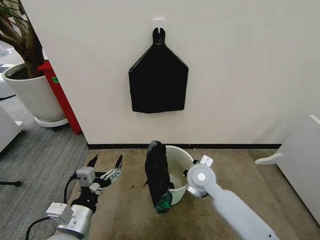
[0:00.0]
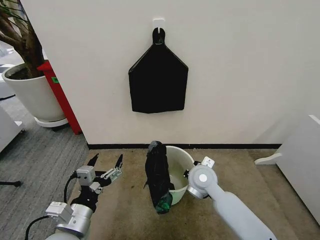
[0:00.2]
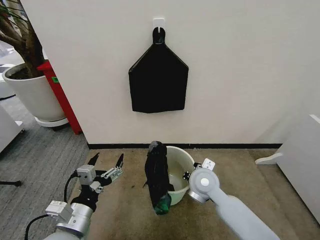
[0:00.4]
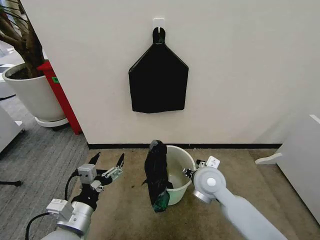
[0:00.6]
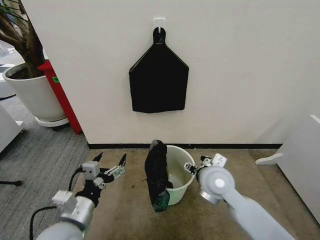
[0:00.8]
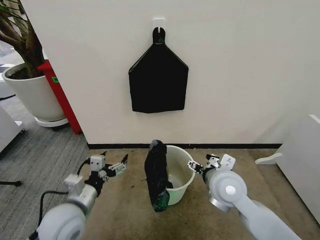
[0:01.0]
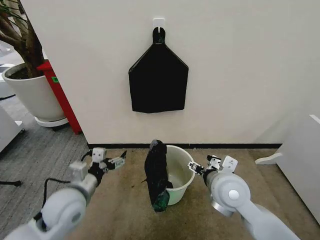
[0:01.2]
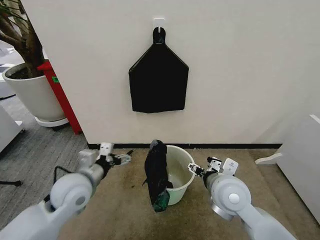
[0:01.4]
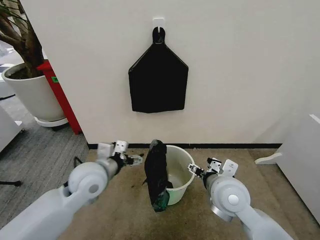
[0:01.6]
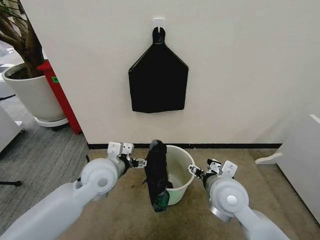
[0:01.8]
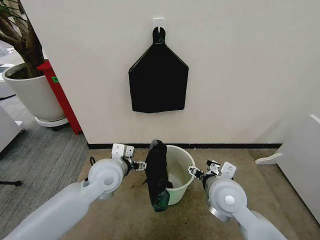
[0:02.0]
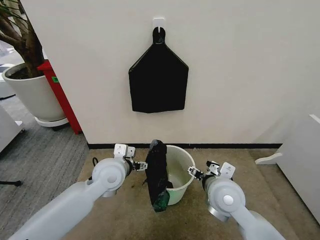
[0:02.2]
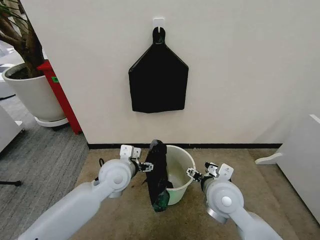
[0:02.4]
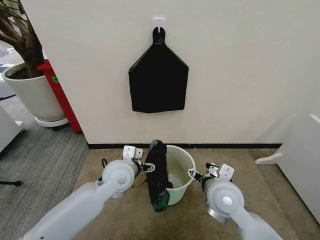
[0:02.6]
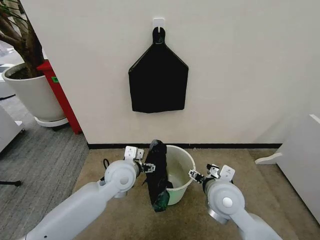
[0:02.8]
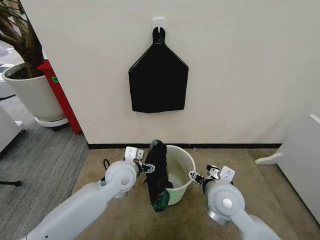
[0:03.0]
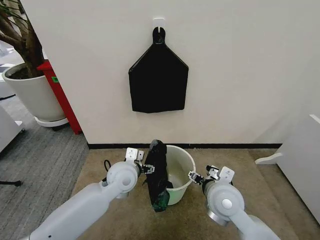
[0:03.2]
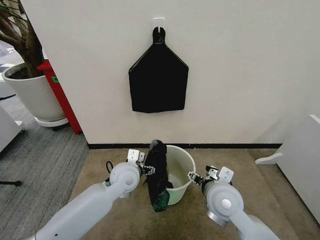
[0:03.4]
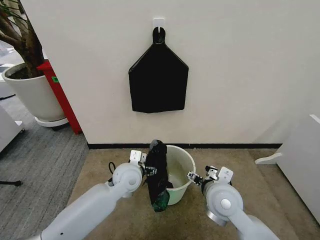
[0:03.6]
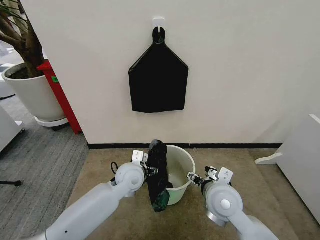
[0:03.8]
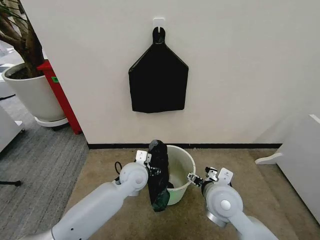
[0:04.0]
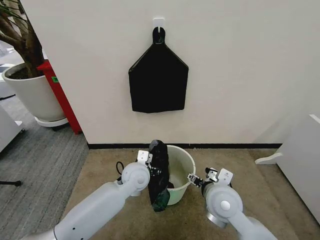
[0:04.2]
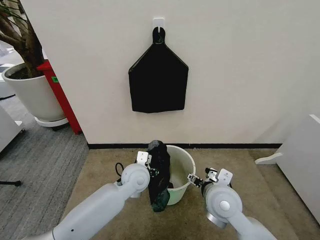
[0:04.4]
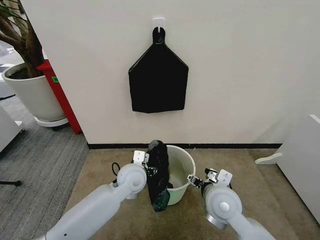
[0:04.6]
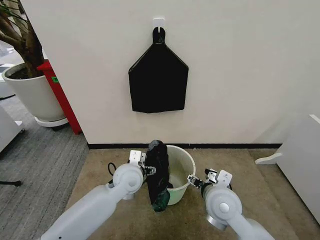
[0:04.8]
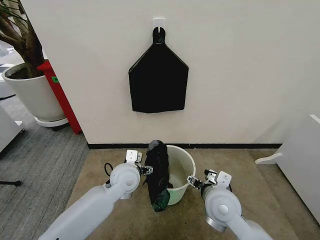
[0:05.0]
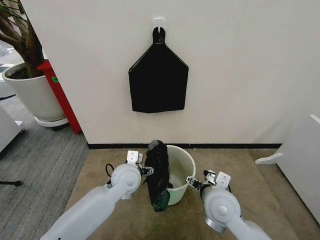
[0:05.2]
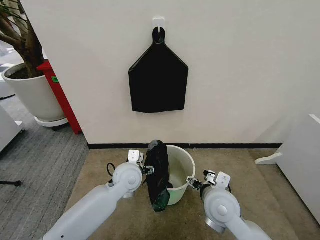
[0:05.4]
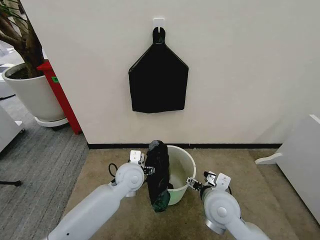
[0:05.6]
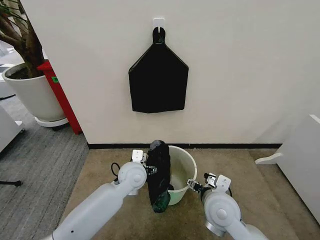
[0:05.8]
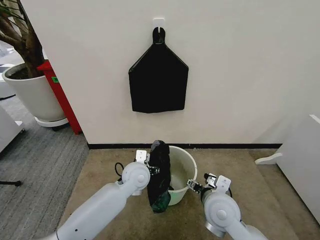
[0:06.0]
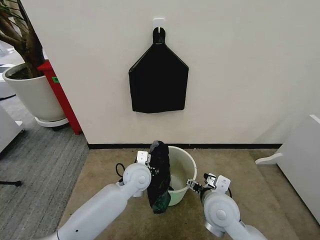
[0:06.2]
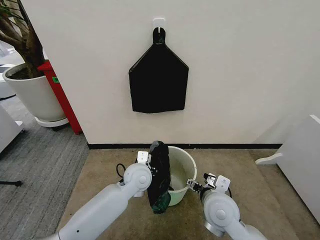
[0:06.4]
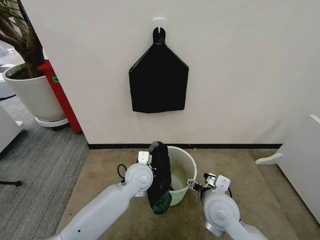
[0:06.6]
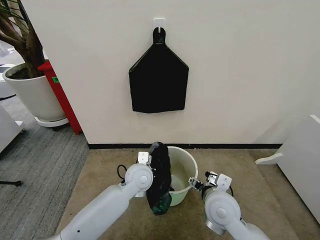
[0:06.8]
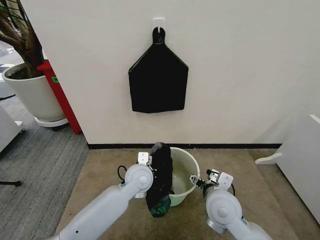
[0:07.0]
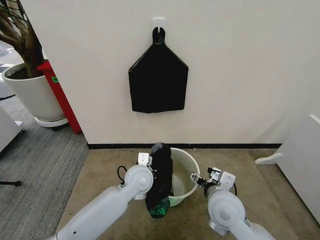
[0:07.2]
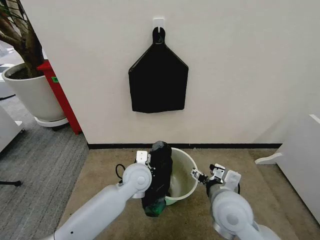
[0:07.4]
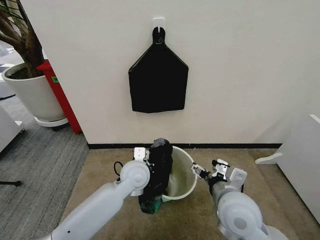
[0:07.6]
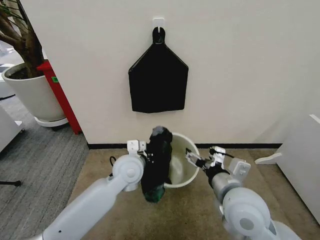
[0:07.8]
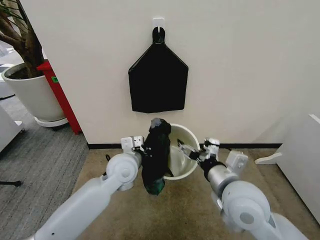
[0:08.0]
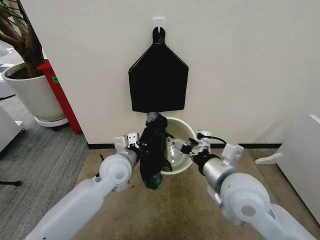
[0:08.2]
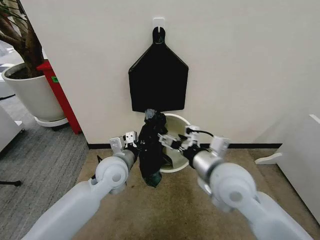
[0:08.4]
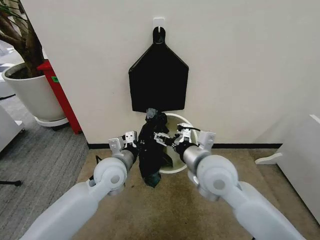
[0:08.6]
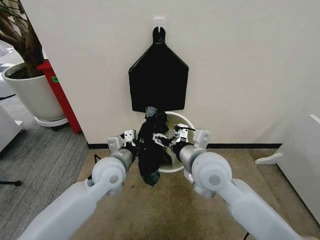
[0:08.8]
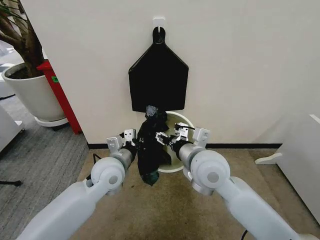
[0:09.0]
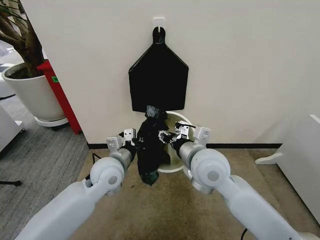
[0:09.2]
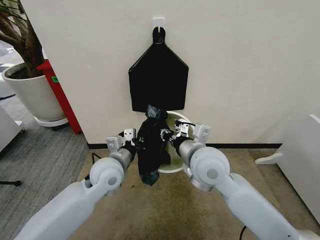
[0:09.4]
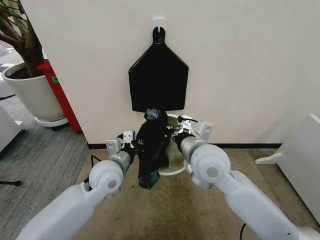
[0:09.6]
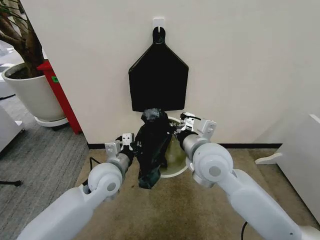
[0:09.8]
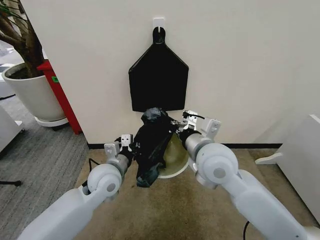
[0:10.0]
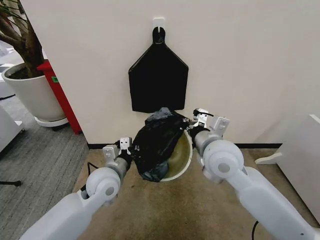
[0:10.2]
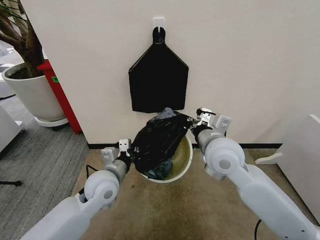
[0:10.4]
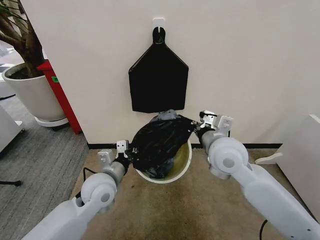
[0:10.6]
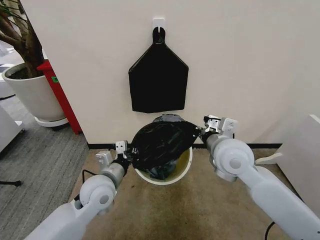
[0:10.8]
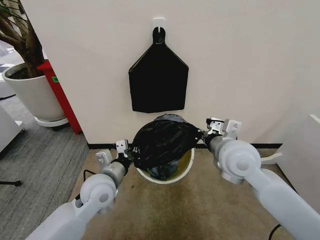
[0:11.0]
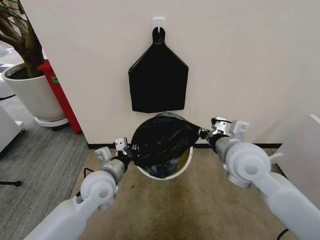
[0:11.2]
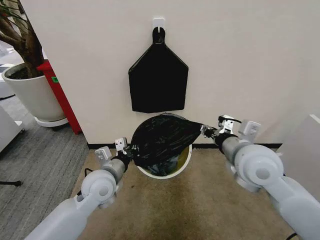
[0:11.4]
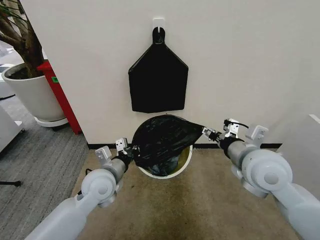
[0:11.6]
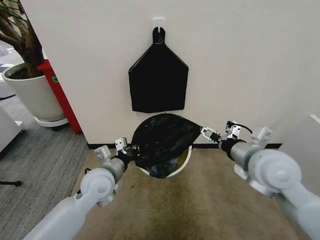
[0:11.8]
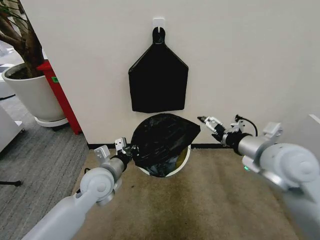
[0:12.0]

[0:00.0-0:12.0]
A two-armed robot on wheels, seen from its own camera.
Task of the whole recording: Place the garbage bag over the trash bin.
0:00.0 to 0:01.6: The right gripper is displaced backward and upward by roughly 10 cm, and opens its fingers, while the left gripper heads forward, covering roughly 15 cm.
0:01.6 to 0:03.0: The left gripper shifts approximately 10 cm to the right.
0:03.0 to 0:04.4: The left gripper changes place by about 5 cm.
0:04.4 to 0:06.0: The grippers stay close to where they were, moving slightly.
0:06.0 to 0:07.6: The left gripper closes its fingers. Meanwhile the right gripper is displaced upward by some 5 cm.
0:07.6 to 0:09.0: The left gripper shifts about 5 cm to the left. Meanwhile the right gripper moves forward, to the left and upward, approximately 10 cm.
0:09.0 to 0:10.4: The right gripper shifts by some 5 cm, and closes its fingers.
0:10.4 to 0:12.0: The right gripper shifts some 10 cm to the right, and opens its fingers.

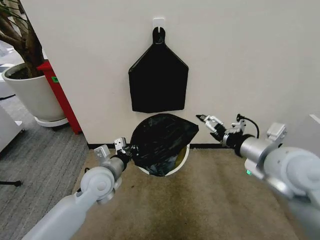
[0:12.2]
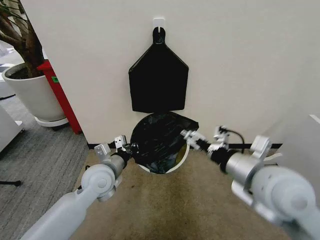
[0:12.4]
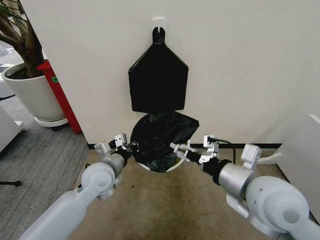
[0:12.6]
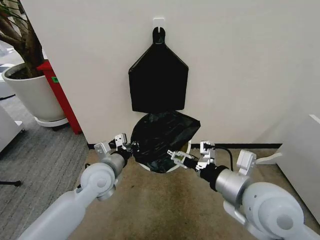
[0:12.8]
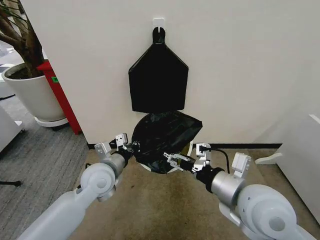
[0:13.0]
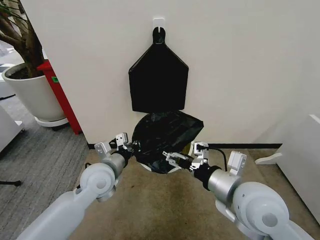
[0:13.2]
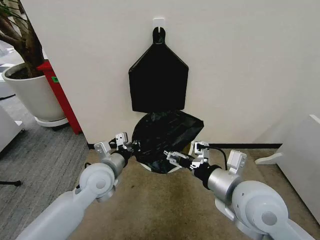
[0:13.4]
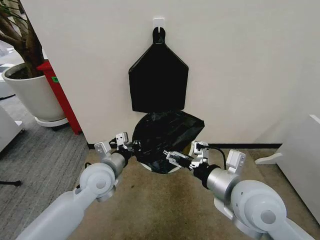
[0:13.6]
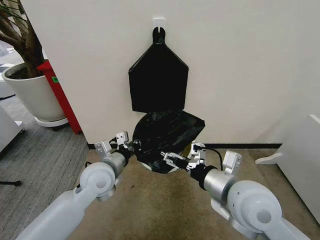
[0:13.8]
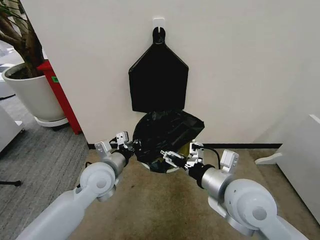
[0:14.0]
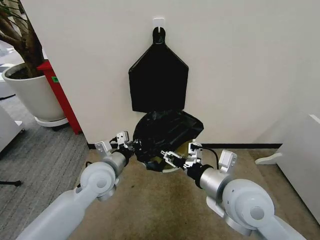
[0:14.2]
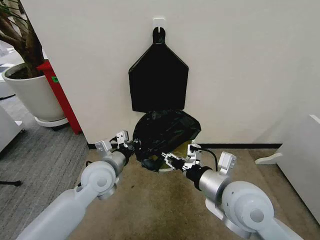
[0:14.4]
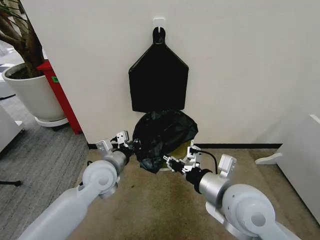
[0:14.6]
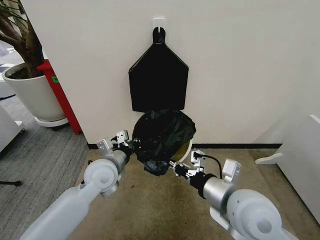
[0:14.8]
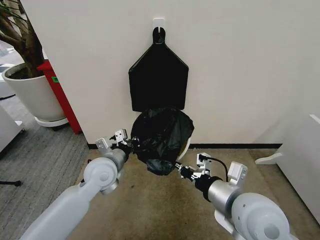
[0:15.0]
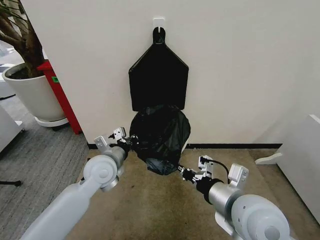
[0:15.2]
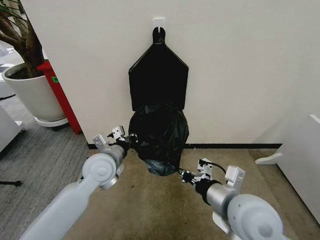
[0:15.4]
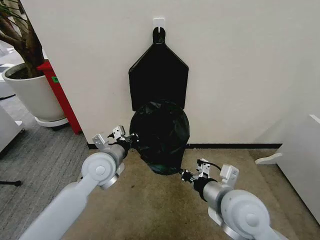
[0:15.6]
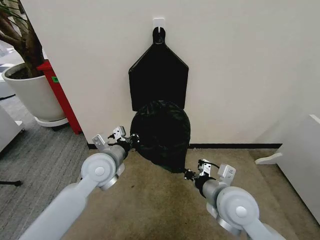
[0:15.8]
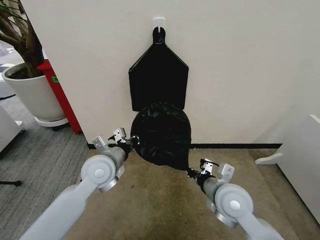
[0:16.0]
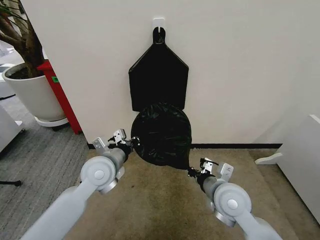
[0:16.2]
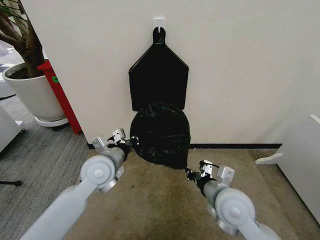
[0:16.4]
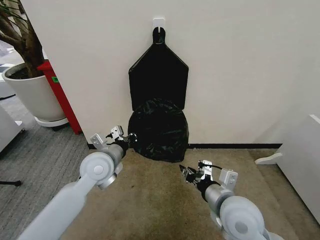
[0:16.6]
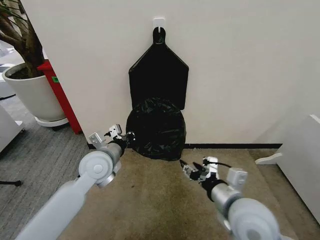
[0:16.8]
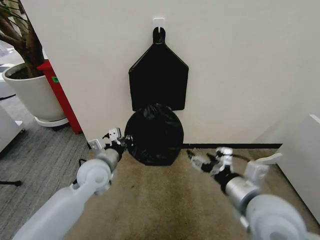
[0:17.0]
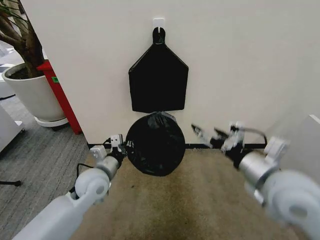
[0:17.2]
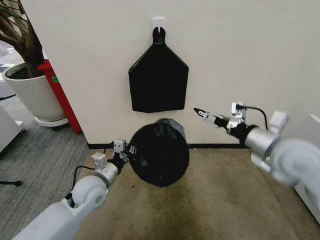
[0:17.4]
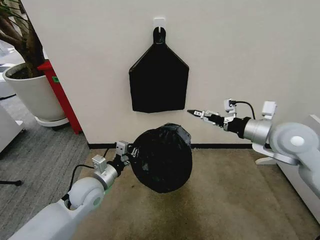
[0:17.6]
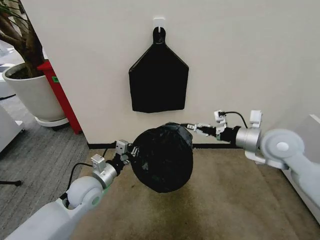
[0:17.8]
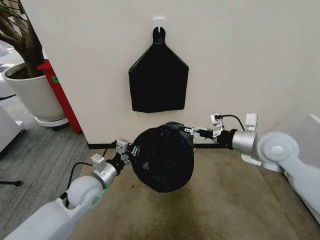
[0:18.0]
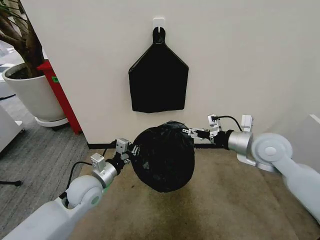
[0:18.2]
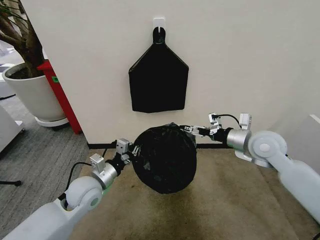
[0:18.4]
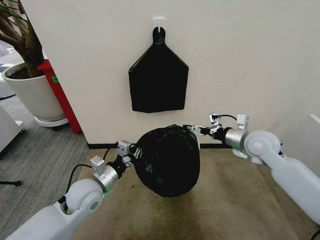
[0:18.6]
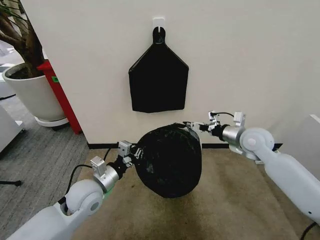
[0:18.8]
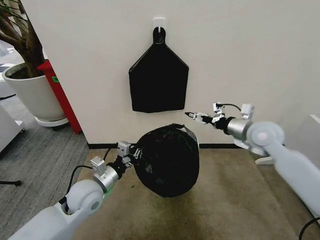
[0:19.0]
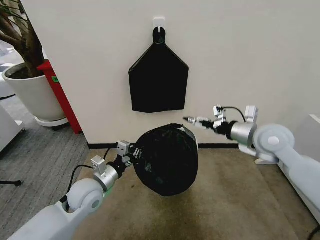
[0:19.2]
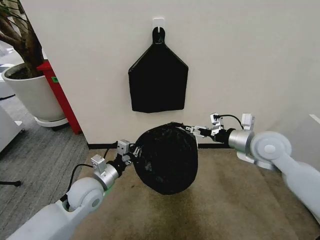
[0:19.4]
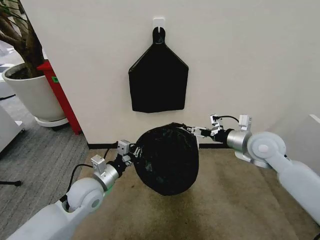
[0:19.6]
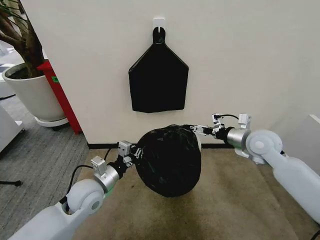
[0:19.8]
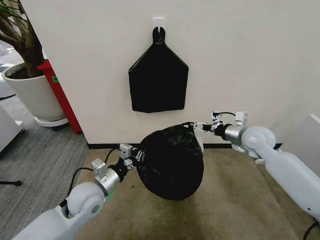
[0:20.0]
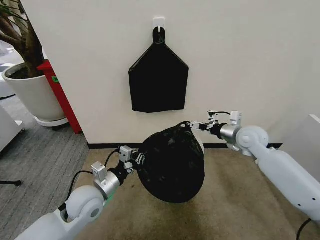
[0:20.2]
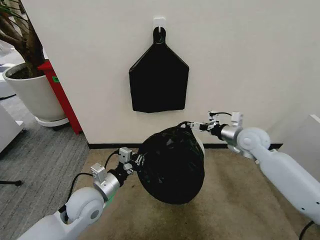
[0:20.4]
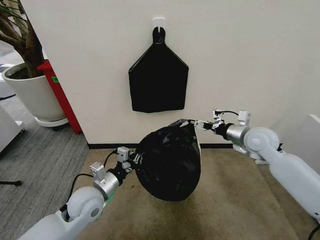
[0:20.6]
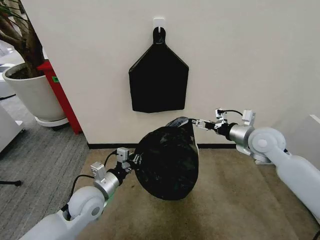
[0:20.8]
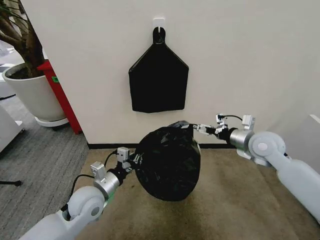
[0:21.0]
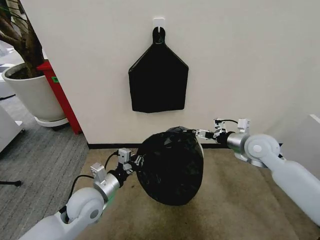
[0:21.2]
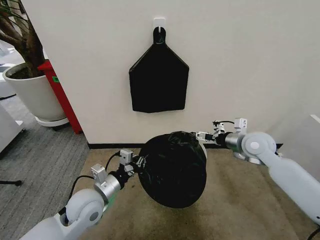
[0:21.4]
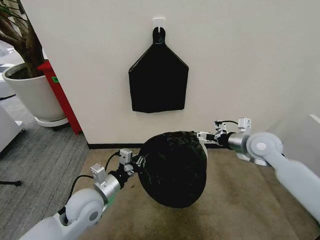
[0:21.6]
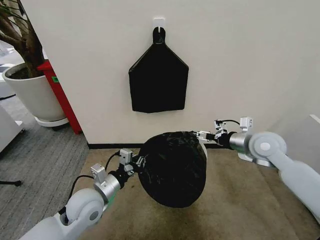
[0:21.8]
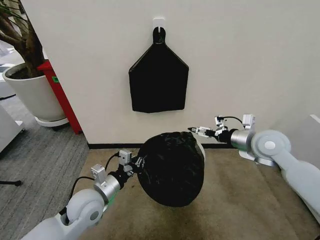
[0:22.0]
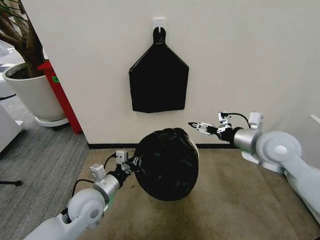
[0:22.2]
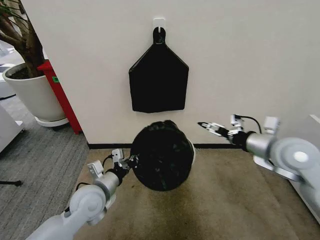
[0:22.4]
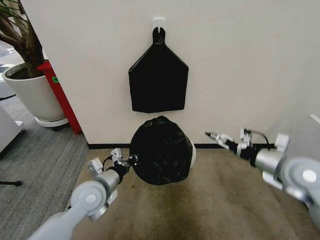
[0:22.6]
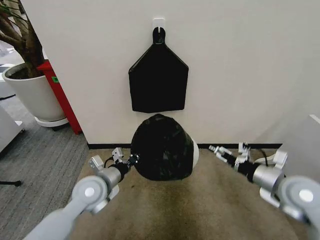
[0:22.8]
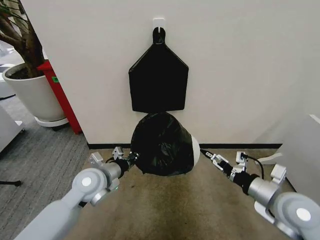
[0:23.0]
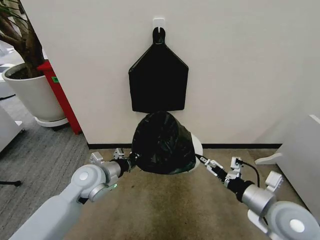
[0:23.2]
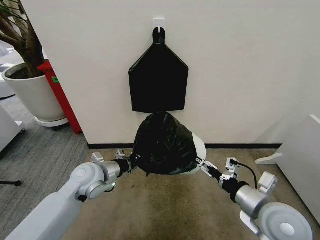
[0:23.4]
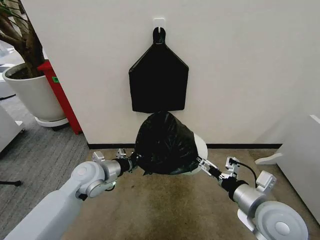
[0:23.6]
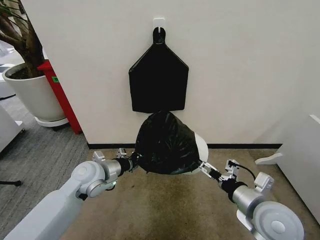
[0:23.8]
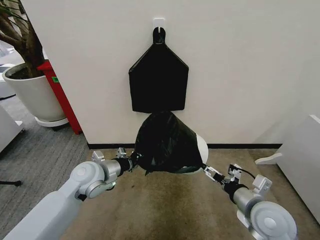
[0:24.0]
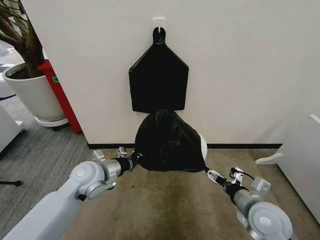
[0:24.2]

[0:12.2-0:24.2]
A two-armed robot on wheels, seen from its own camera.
Task of the whole recording: Place the garbage bag over the trash bin.
0:12.2 to 0:13.8: The right gripper travels to the left and downward by roughly 10 cm.
0:13.8 to 0:15.2: The right gripper closes up.
0:15.2 to 0:16.6: The right gripper shifts roughly 5 cm downward, and opens its fingers.
0:16.6 to 0:18.2: The right gripper moves forward, to the right and upward, approximately 20 cm, and opens its fingers, while the left gripper shifts roughly 5 cm downward.
0:18.2 to 0:19.8: The right gripper changes place by some 5 cm.
0:19.8 to 0:21.2: The grippers make only small movements.
0:21.2 to 0:22.6: The right gripper shifts approximately 10 cm backward.
0:22.6 to 0:24.2: The right gripper travels downward, to the left and backward by about 15 cm. The left gripper changes place by roughly 5 cm.
